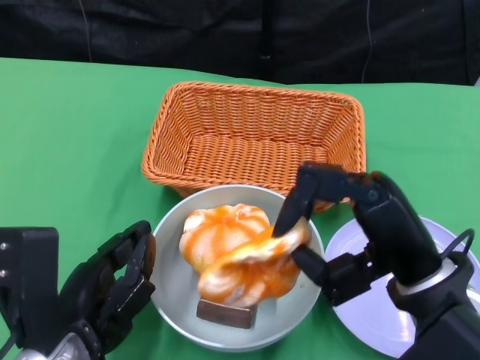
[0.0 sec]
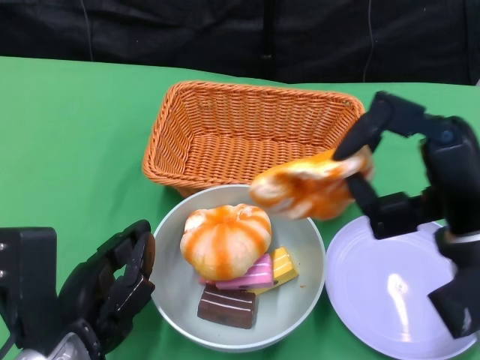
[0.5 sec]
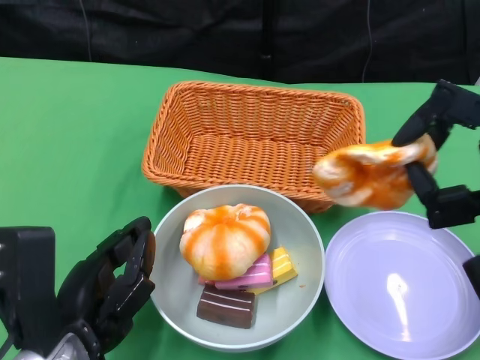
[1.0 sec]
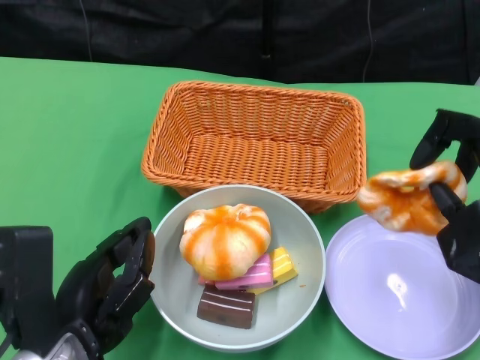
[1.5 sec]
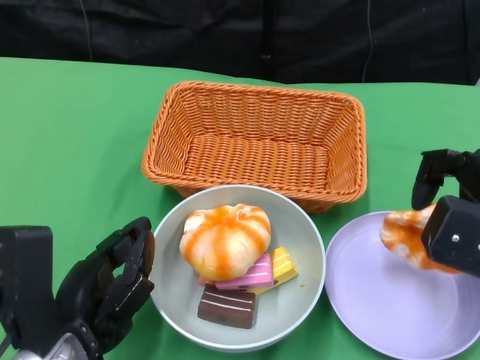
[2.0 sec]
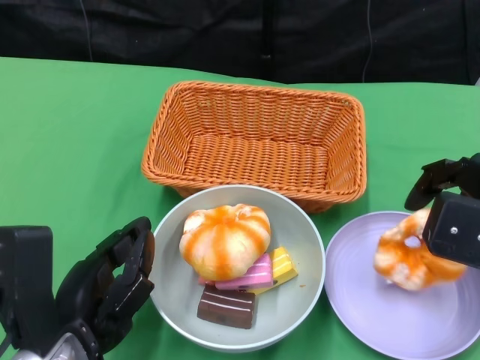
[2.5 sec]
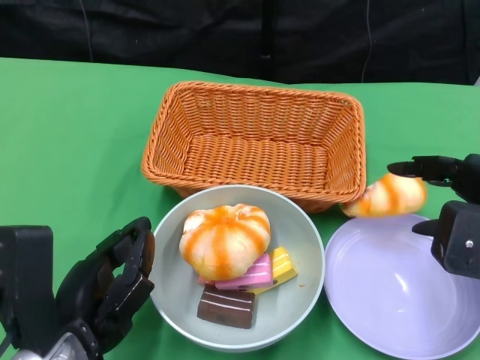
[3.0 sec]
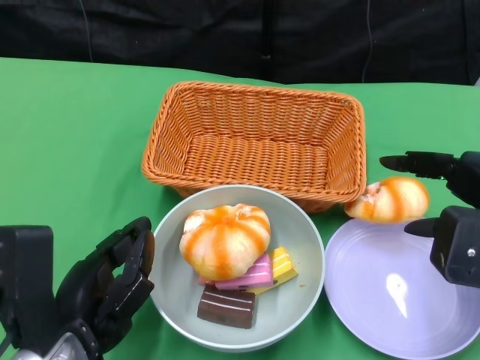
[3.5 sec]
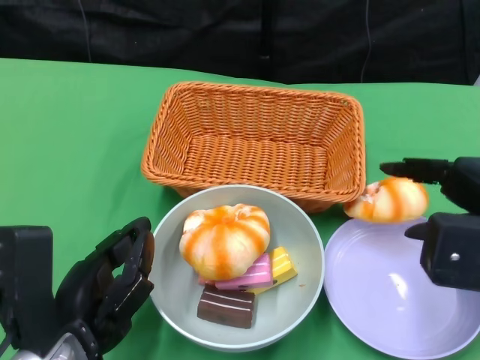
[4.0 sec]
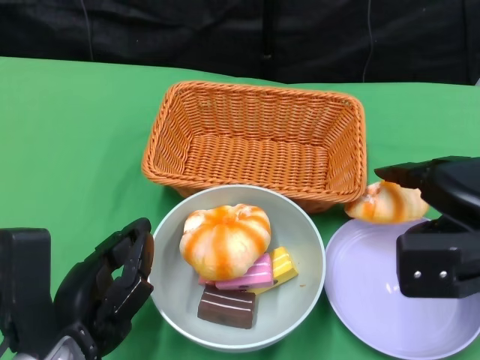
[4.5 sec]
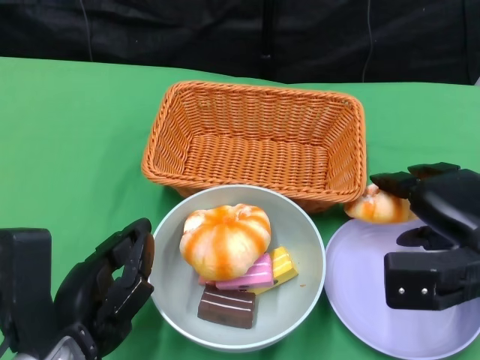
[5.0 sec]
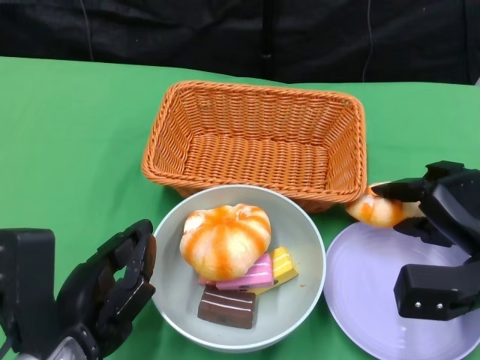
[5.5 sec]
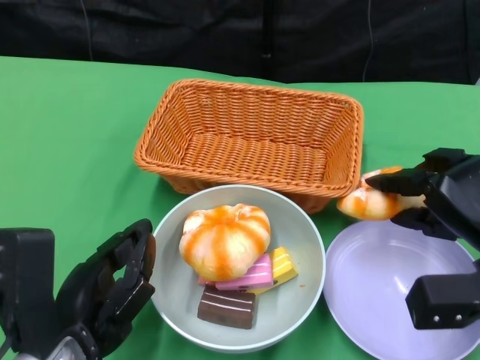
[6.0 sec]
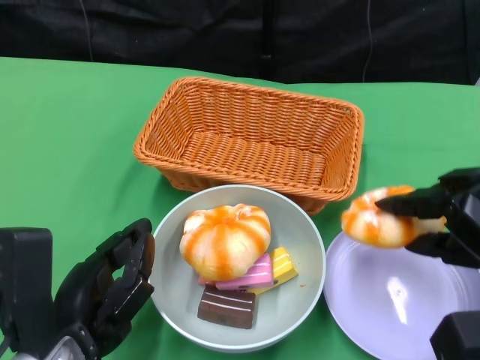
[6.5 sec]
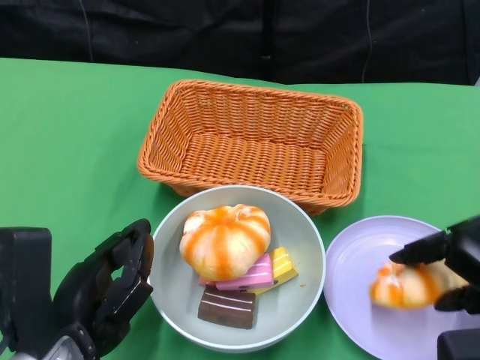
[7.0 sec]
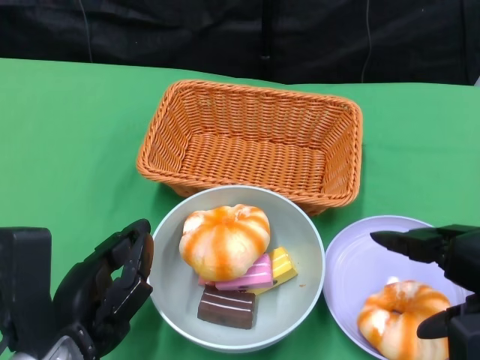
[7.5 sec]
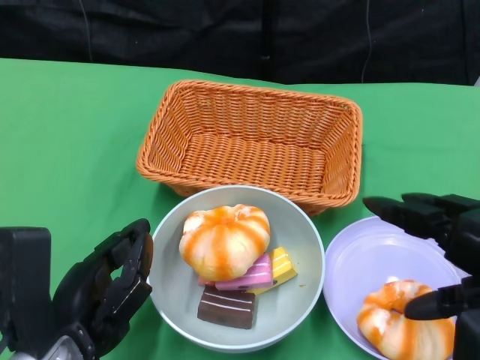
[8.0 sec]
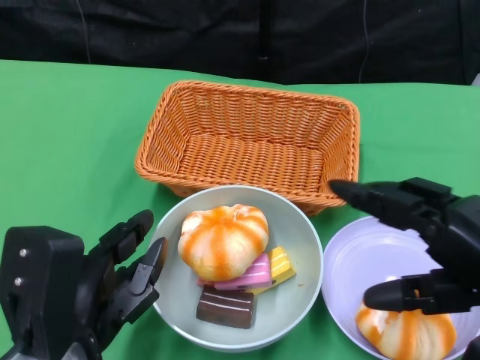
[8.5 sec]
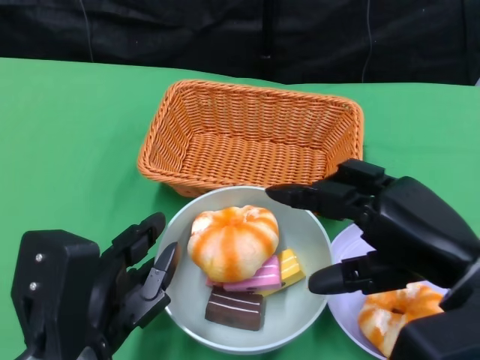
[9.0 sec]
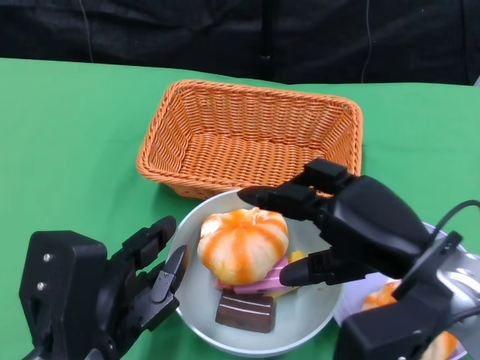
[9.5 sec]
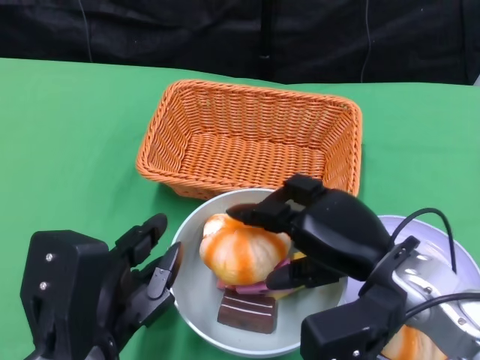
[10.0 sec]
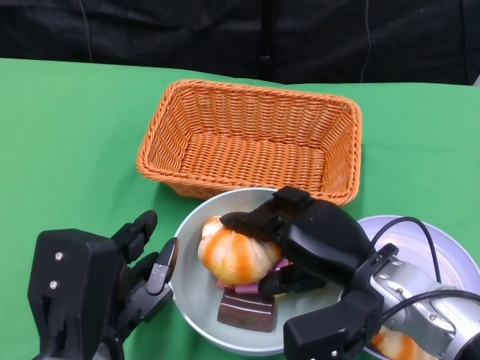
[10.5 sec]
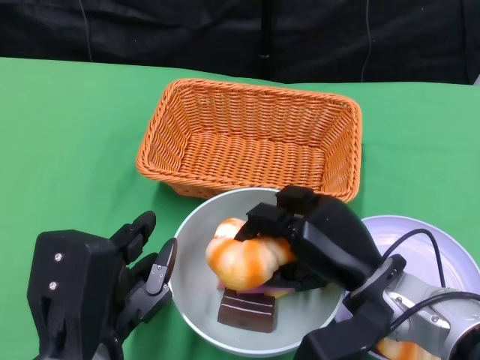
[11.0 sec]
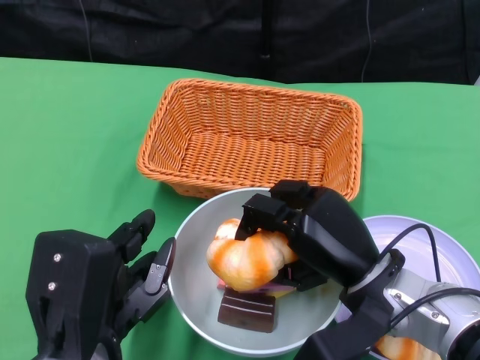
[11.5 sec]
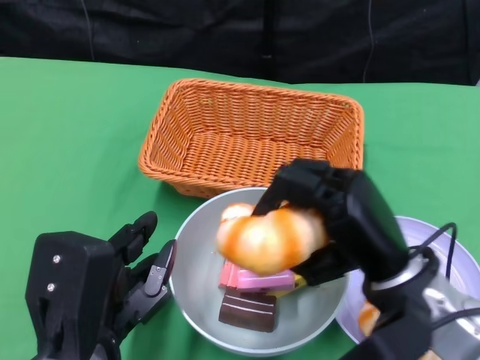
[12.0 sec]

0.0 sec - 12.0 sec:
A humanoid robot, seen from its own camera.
Step, 0.0 sec - 7.5 sec: Pick up the bread with the right gripper and place it on the plate.
0.0 sec - 2.0 sec: The right hand moves to the right, approximately 10 cm.
2.0 sec - 4.0 sec: The hands move only a little.
4.0 sec - 6.0 sec: The right hand heads downward, covering some 10 cm.
6.0 sec - 8.0 sec: The right hand shifts roughly 15 cm upward and backward.
8.0 sec - 10.0 sec: The right hand moves to the left, downward and forward, some 15 cm.

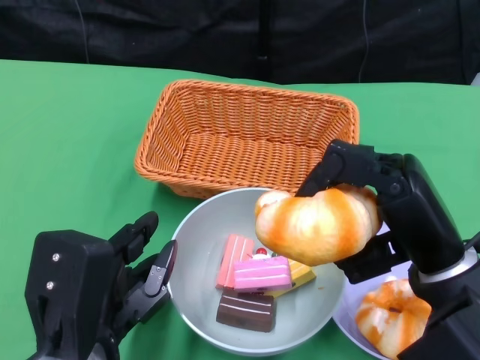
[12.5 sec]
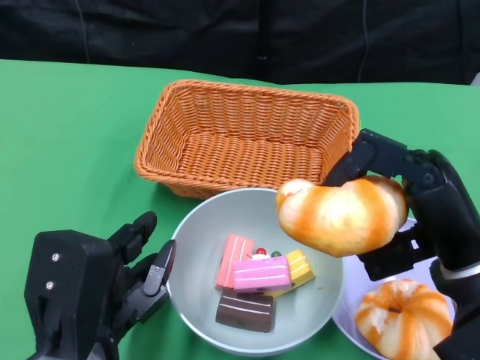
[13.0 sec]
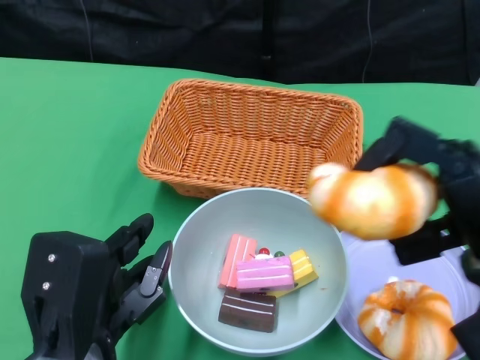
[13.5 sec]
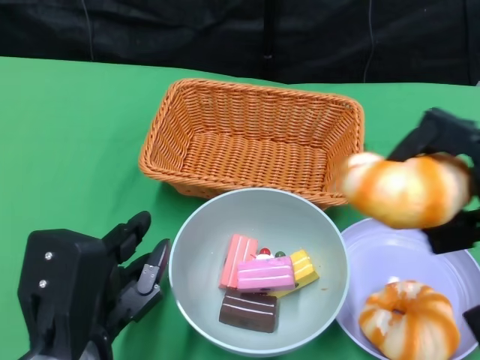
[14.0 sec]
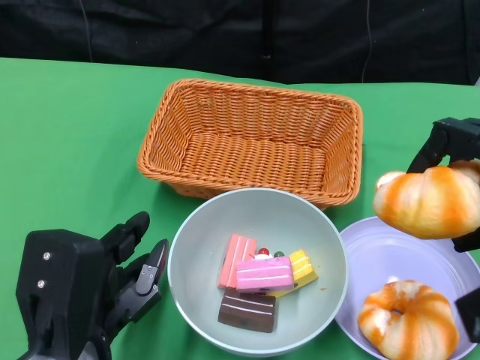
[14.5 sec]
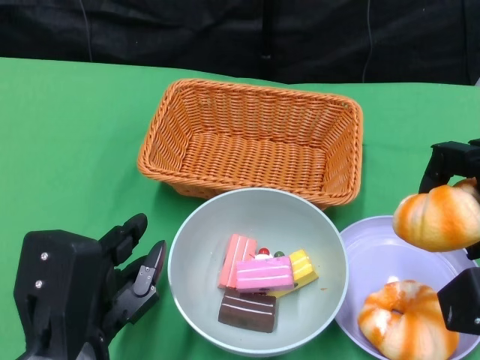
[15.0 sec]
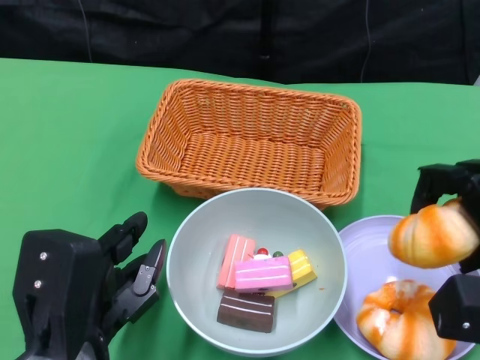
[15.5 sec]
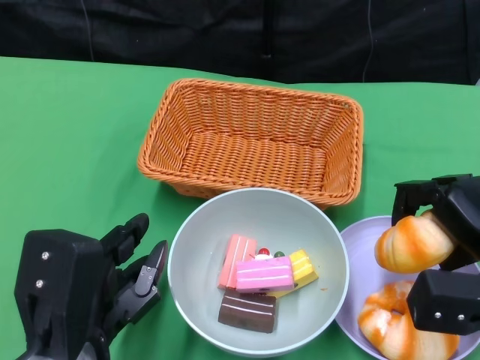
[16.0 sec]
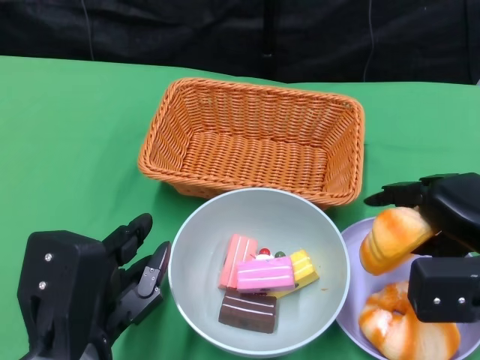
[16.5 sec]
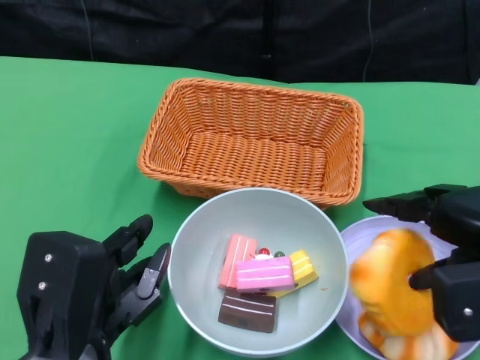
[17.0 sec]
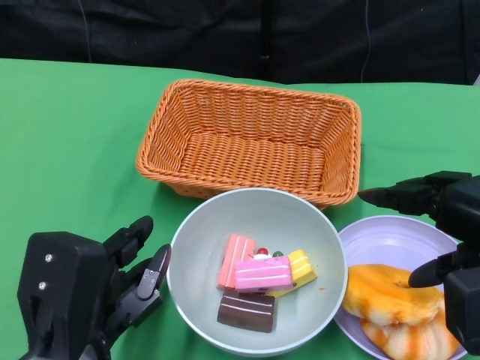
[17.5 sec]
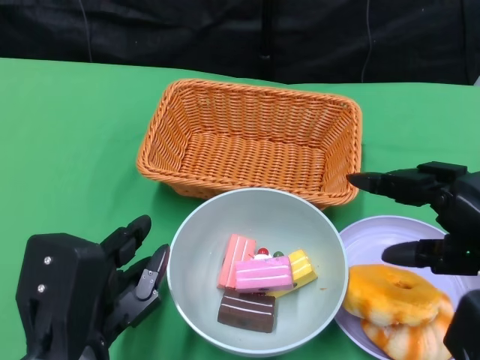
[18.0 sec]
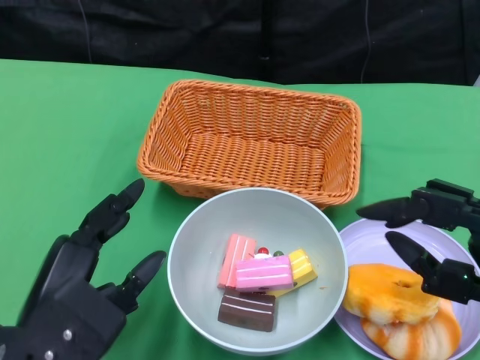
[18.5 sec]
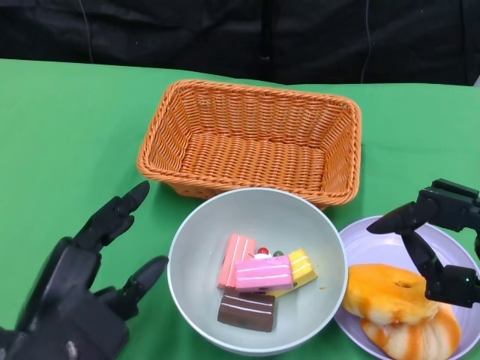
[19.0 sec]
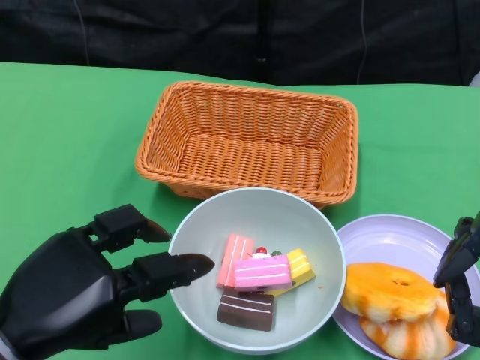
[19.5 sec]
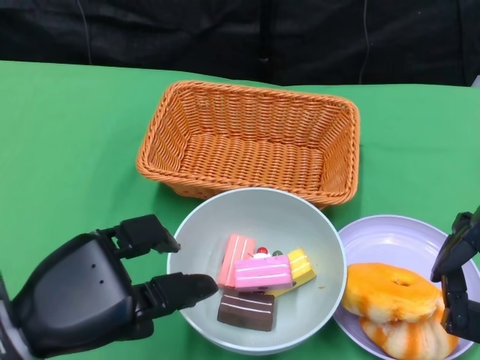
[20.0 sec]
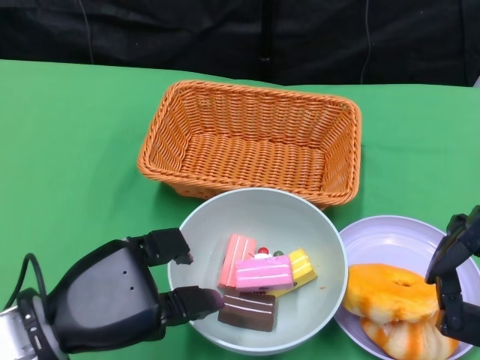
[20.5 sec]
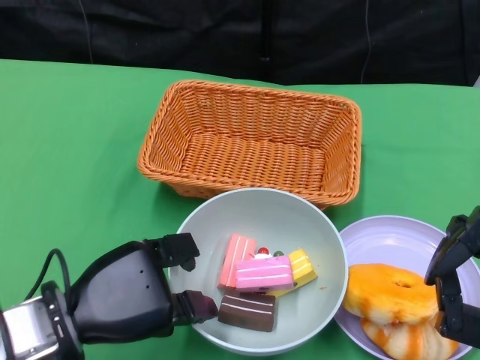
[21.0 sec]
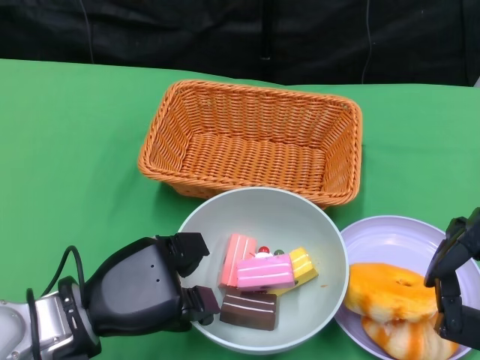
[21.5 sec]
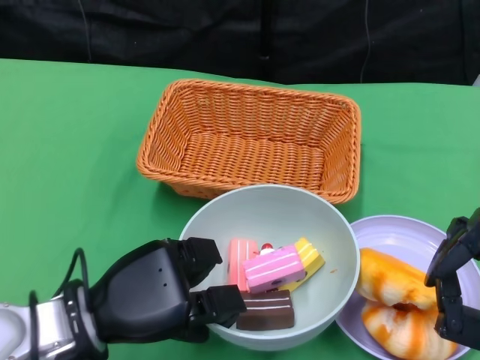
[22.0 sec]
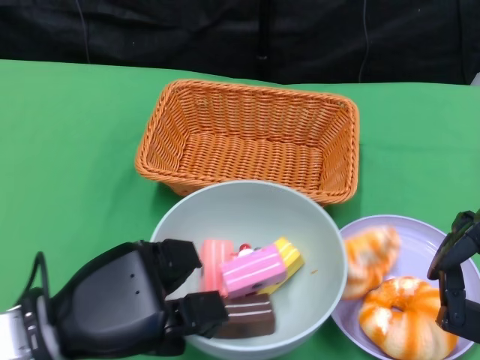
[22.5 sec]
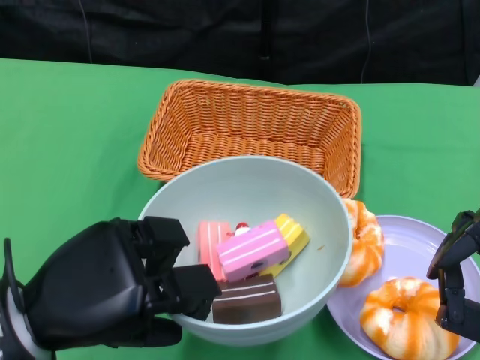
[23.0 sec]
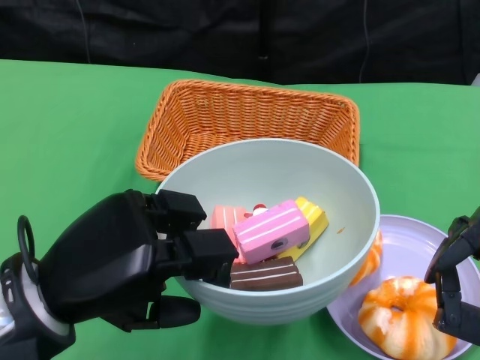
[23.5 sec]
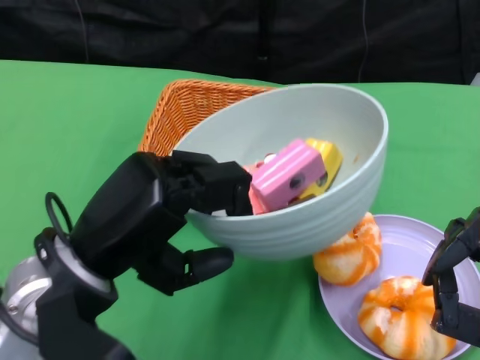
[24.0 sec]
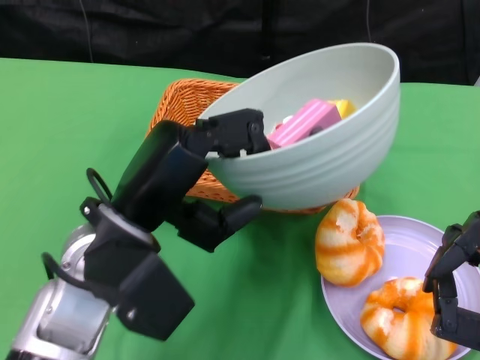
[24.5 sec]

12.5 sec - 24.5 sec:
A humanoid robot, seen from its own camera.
Step, 12.5 sec - 17.5 sec: Pick up the bread with the right gripper and place it on the plate.
Step, 18.0 sec - 21.5 sec: Grasp the bowl with the left gripper.
12.5 sec - 14.5 sec: The right hand shifts about 10 cm to the right.
14.5 sec - 16.5 sec: The right hand shifts by some 5 cm.
16.5 sec - 18.5 sec: The right hand moves backward, some 10 cm.
20.5 sec - 22.5 sec: There are only small adjustments of the hands.
22.5 sec - 24.5 sec: The left hand shifts approximately 5 cm to the right.

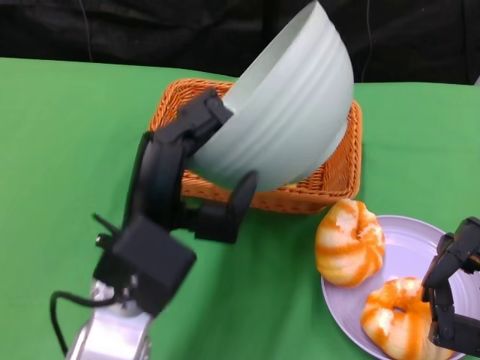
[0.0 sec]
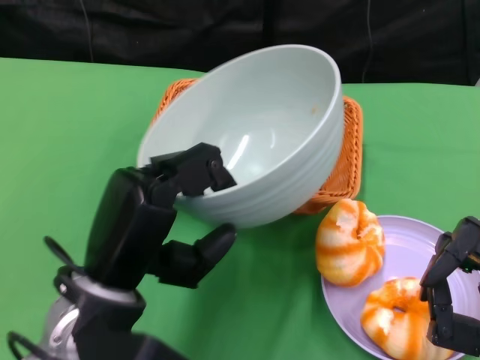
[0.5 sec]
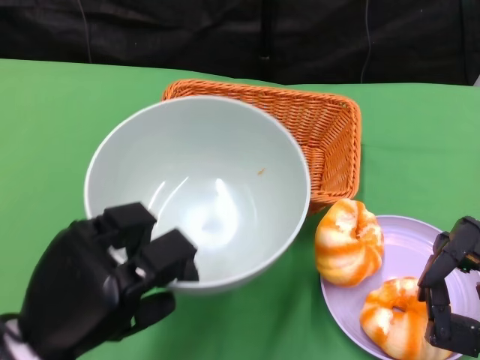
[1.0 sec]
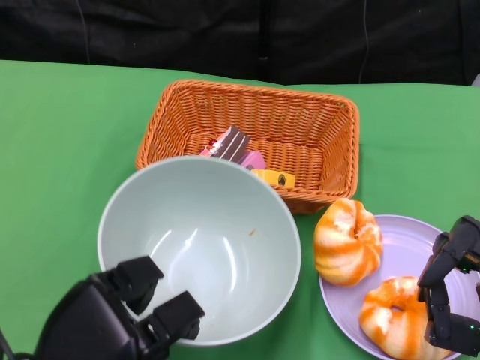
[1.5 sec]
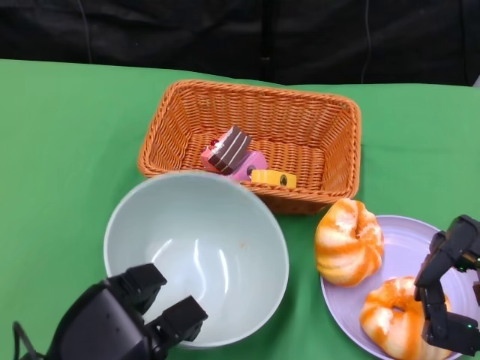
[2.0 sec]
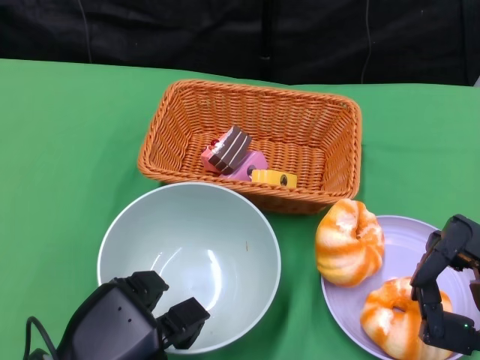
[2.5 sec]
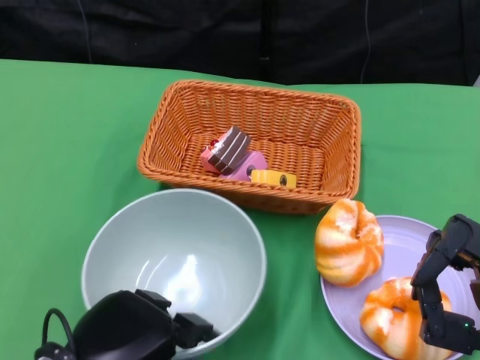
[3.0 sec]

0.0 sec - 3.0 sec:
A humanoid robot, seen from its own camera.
0.0 sec - 1.5 sec: The left hand moves to the left, downward and backward, roughly 15 cm.
